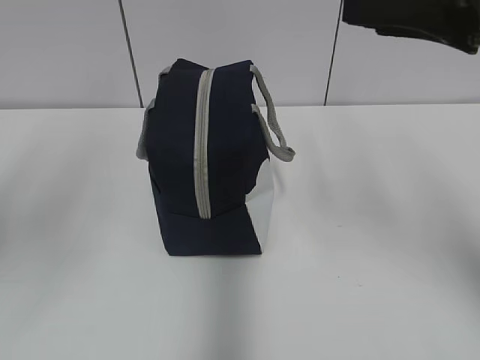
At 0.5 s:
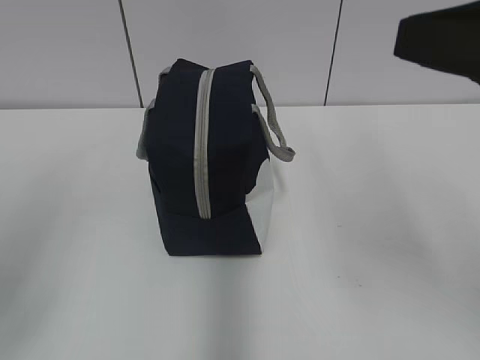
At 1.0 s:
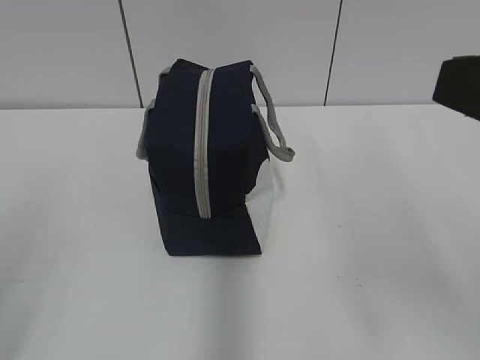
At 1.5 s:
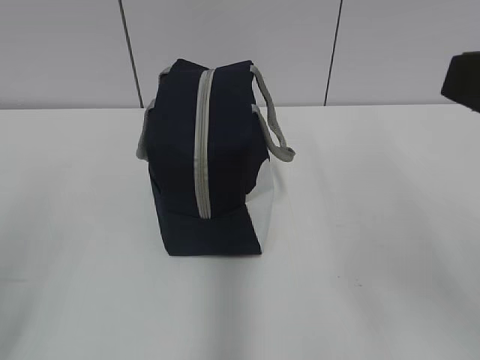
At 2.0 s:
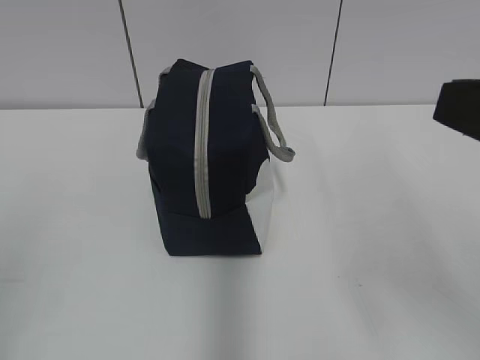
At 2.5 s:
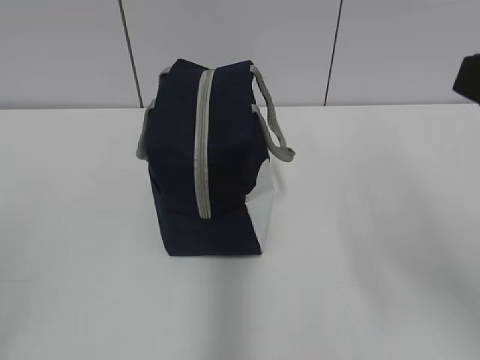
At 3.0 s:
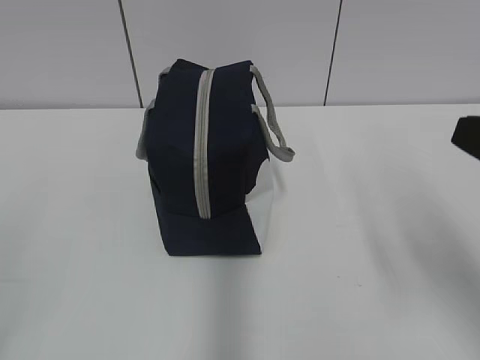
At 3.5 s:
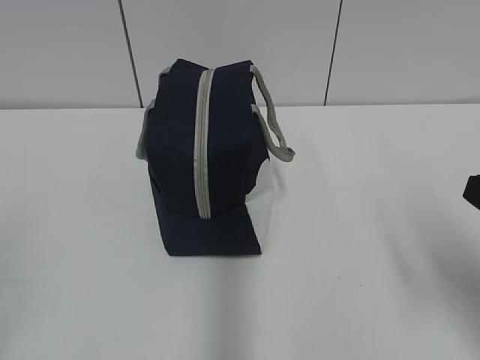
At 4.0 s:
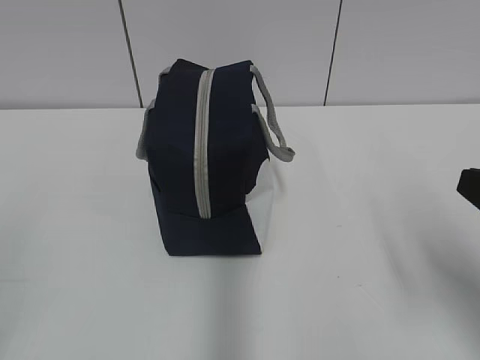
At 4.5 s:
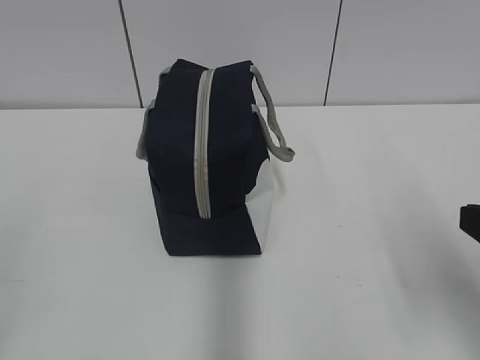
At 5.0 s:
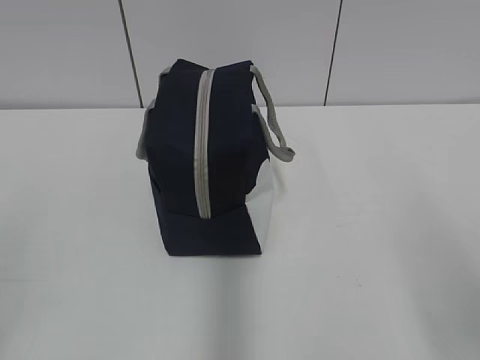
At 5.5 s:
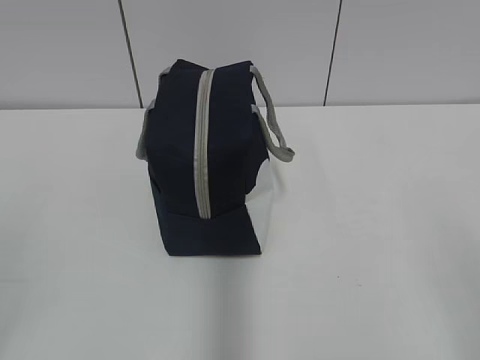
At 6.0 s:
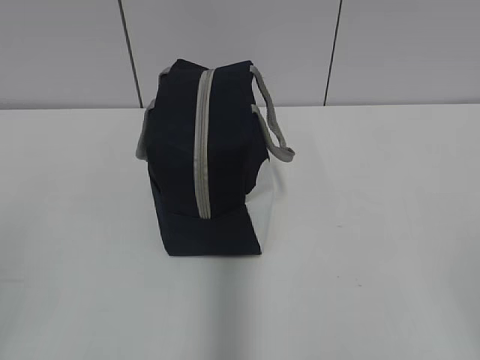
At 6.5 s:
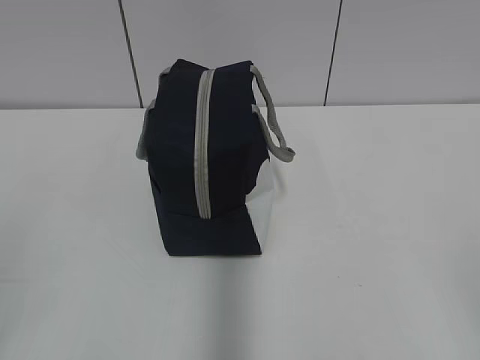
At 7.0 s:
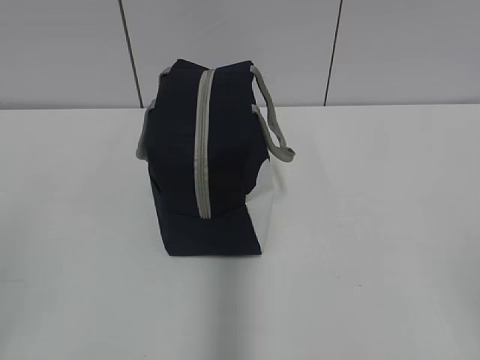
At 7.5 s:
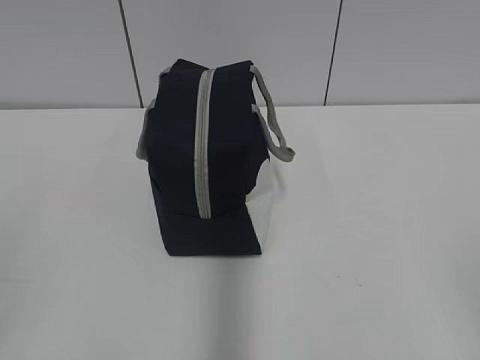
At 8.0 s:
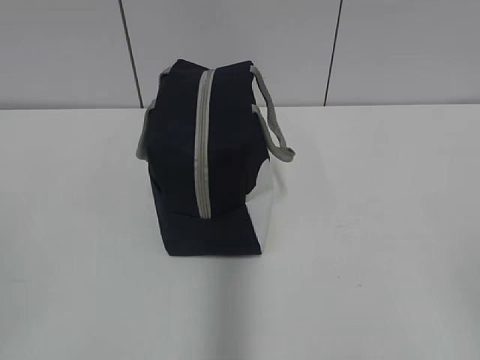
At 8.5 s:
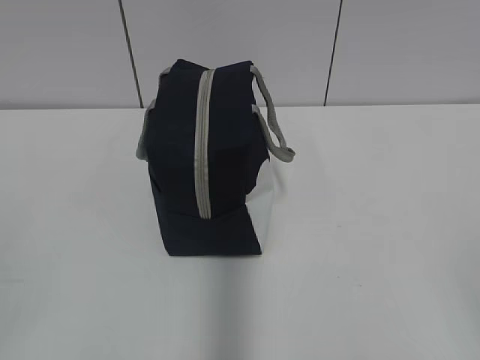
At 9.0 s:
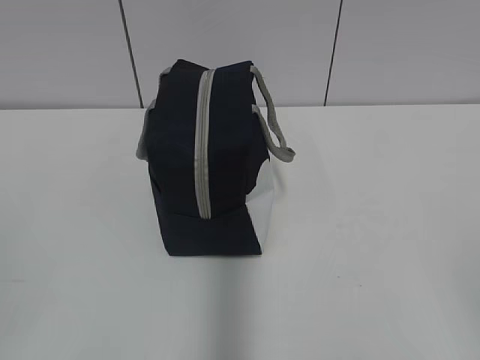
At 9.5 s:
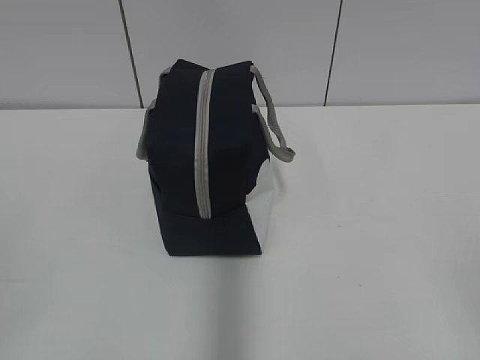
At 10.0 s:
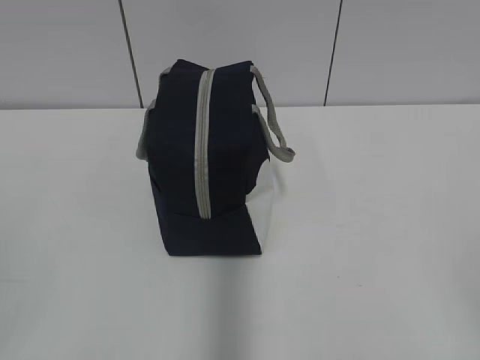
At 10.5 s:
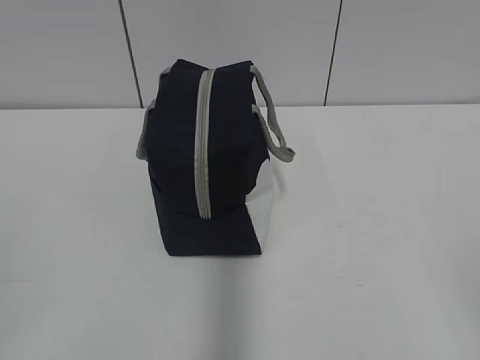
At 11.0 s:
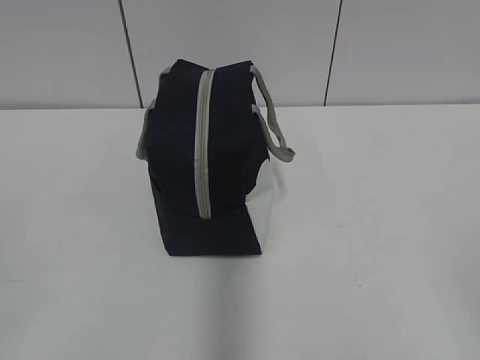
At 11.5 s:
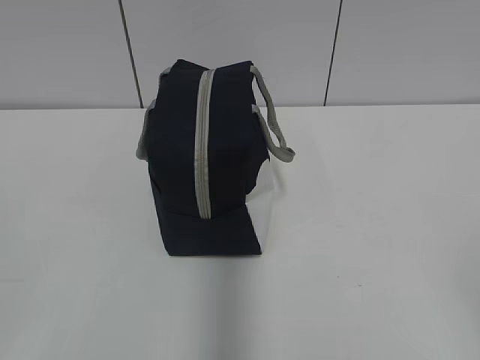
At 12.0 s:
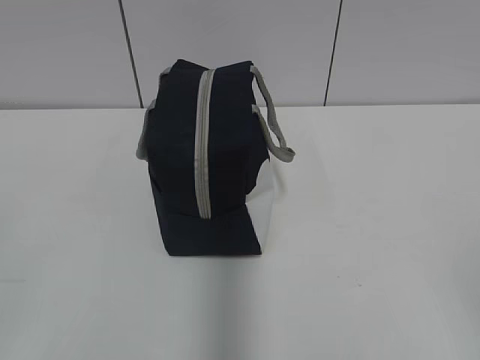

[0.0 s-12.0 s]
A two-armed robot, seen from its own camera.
0.0 to 2.0 s: The right gripper travels backward by roughly 10 cm.
2.0 to 4.0 s: The right gripper moves downward, about 10 cm.
4.0 to 6.0 s: The right gripper travels backward by approximately 15 cm.
8.0 to 10.0 s: Both grippers stay about where they are.

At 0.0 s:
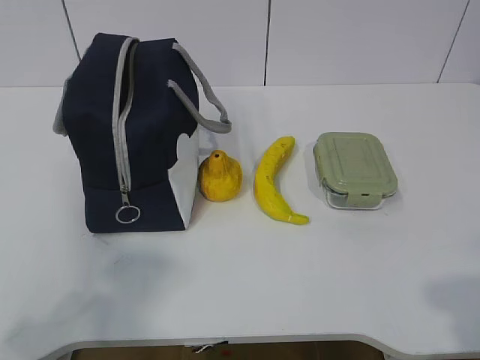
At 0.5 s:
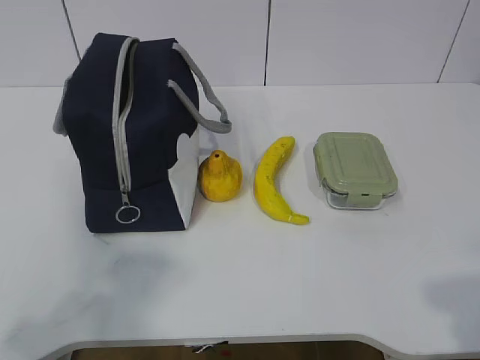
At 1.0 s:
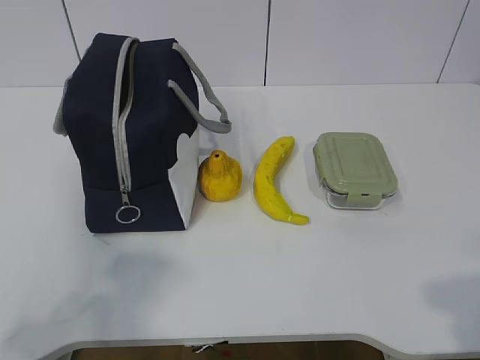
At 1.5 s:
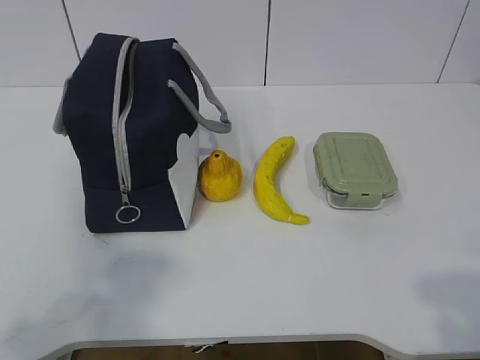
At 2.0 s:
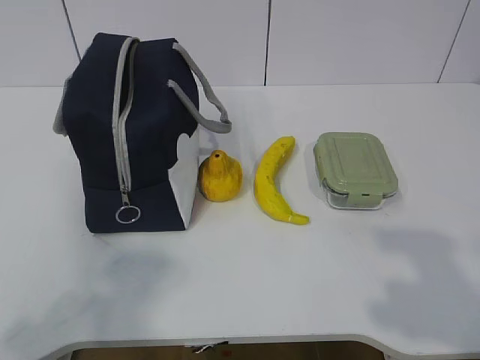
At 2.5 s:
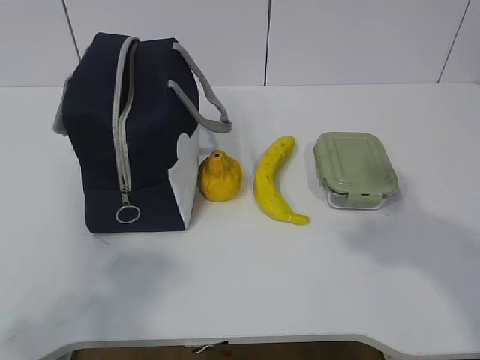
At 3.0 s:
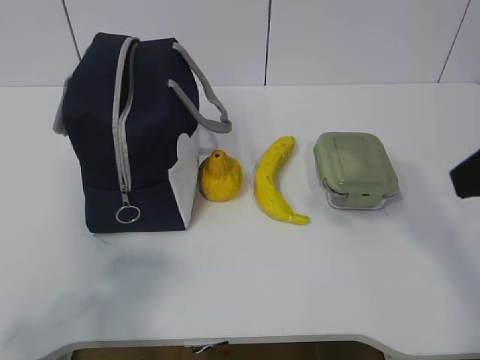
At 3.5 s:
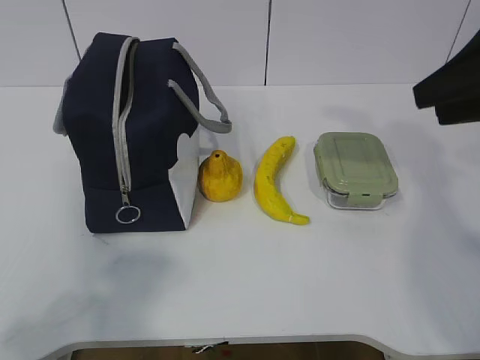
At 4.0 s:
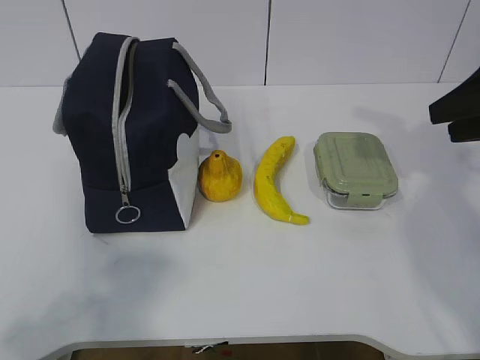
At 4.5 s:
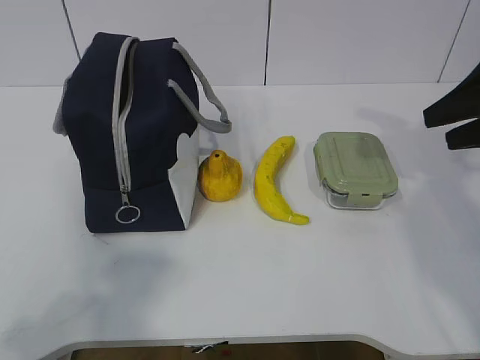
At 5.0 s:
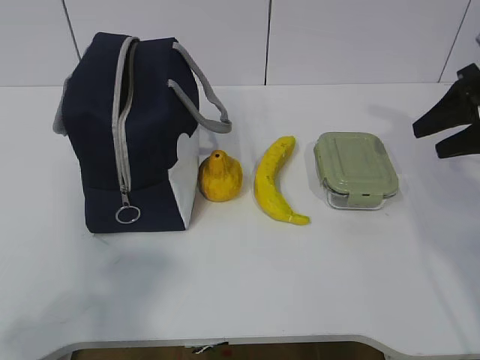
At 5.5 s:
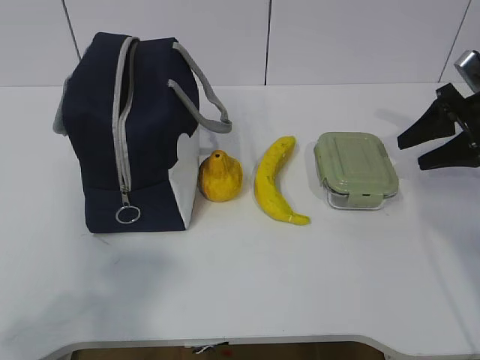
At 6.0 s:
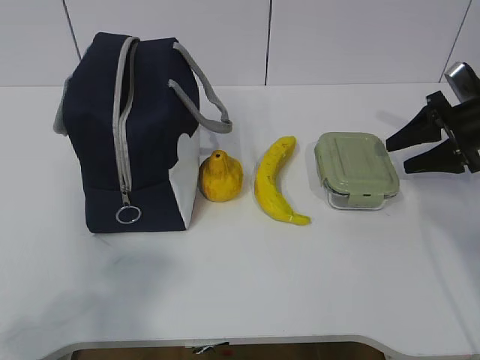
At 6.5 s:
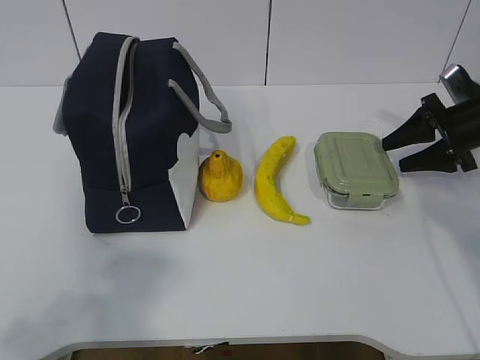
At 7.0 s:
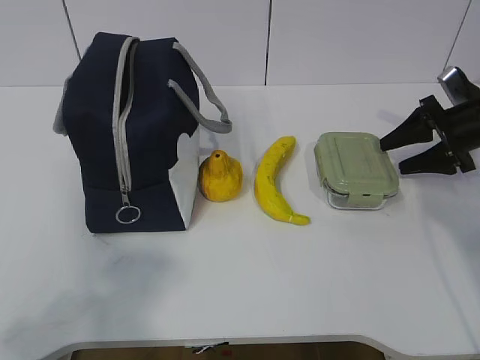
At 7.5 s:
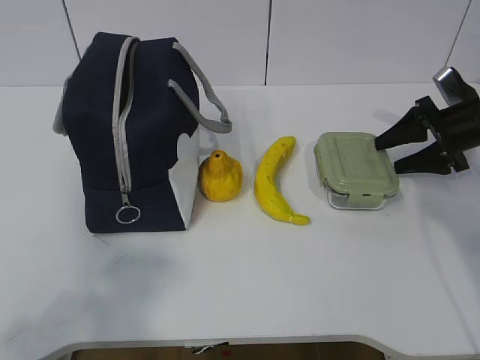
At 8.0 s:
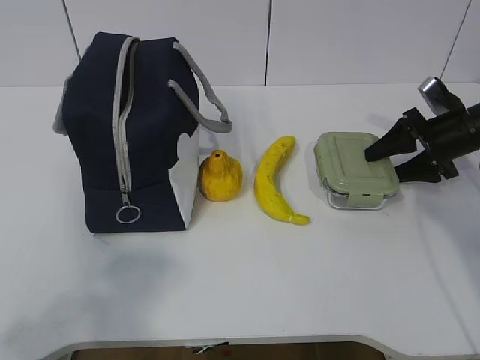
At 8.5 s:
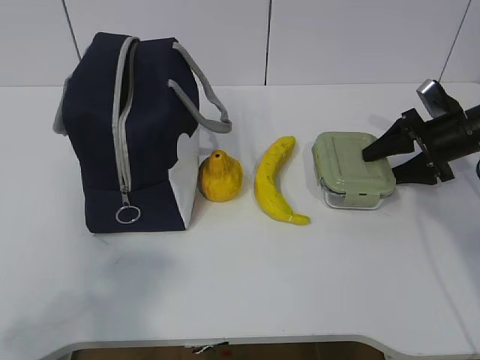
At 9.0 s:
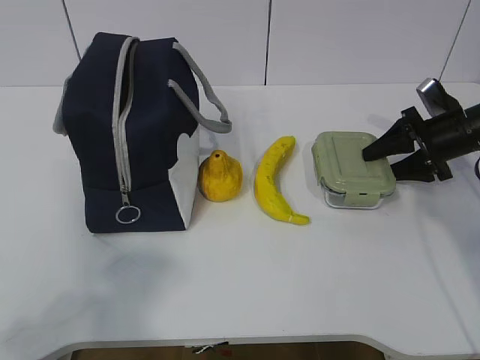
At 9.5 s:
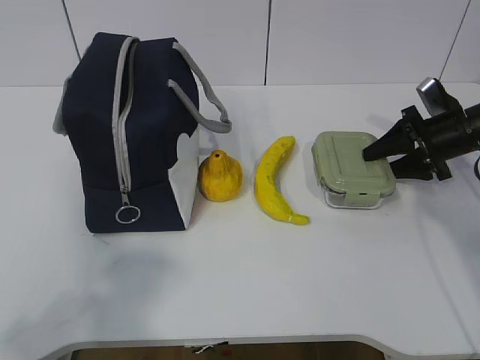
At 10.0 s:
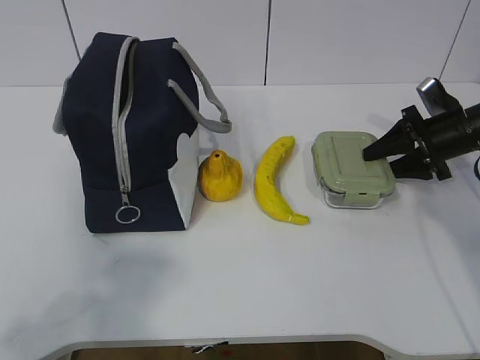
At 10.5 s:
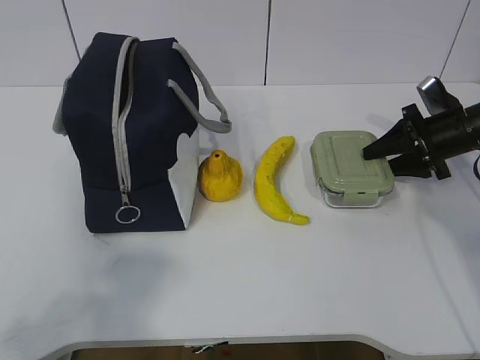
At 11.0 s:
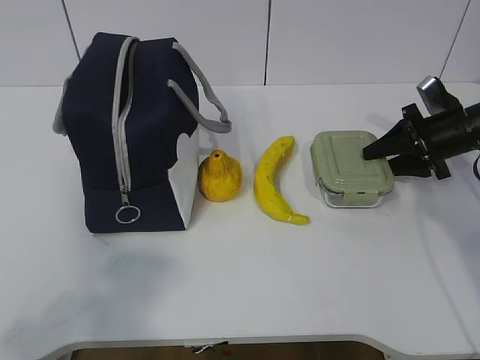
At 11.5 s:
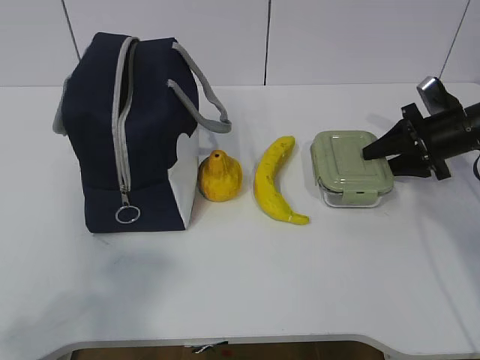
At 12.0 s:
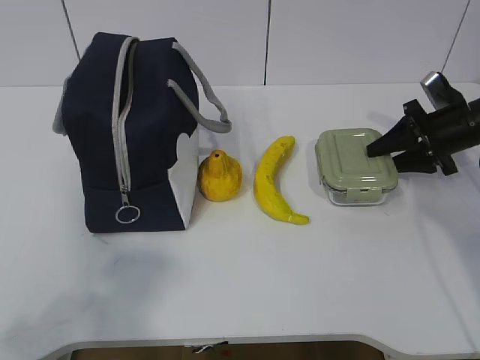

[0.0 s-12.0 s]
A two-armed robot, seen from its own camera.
Step, 0.0 to 10.0 s: Grab the lunch box with your right hand.
2.0 to 4.0 s: The right gripper goes approximately 30 cm forward.
4.0 to 6.0 s: The right gripper shifts roughly 15 cm downward and forward.
6.0 to 8.0 s: The grippers make only small movements.
8.0 to 12.0 s: Both grippers stay put.

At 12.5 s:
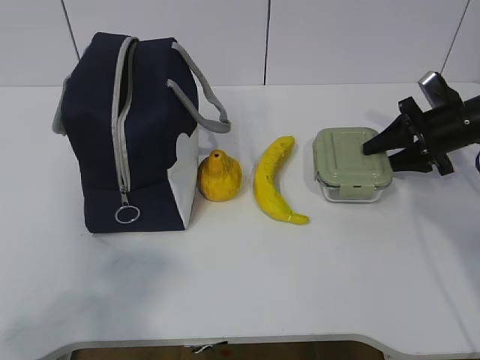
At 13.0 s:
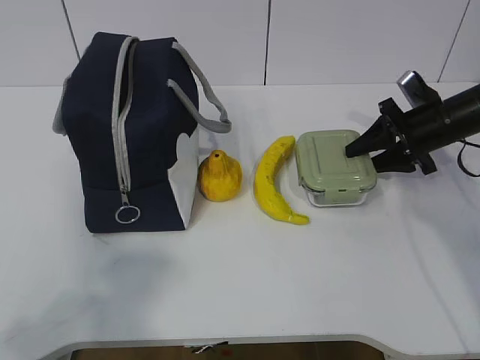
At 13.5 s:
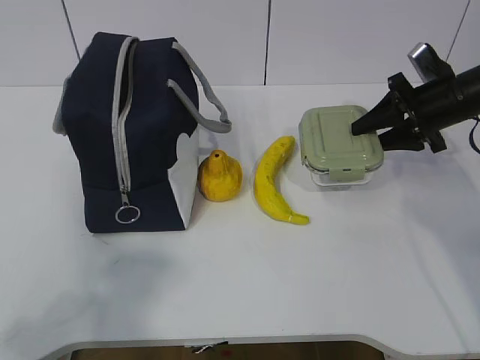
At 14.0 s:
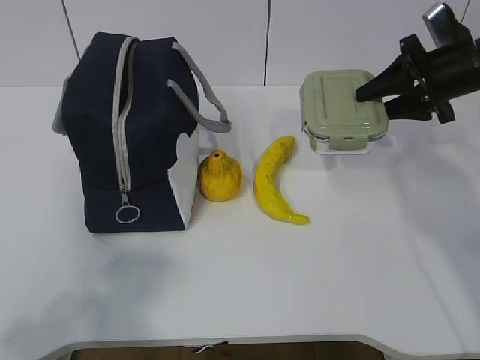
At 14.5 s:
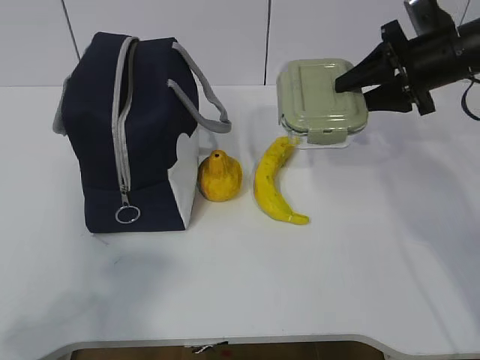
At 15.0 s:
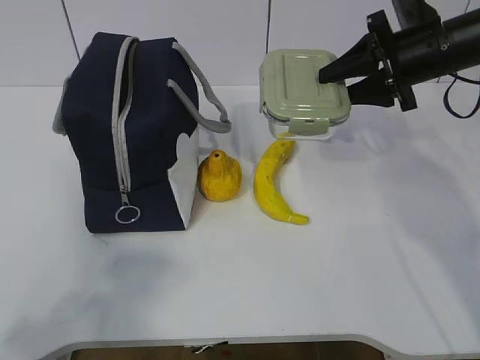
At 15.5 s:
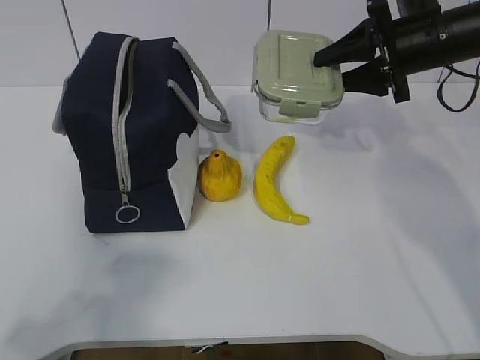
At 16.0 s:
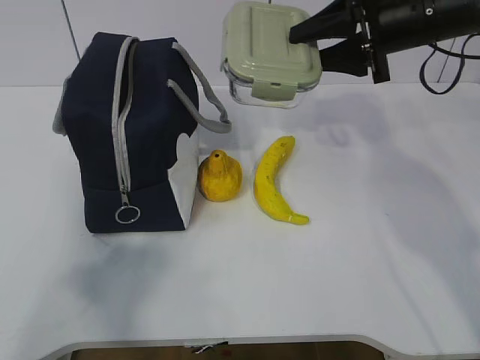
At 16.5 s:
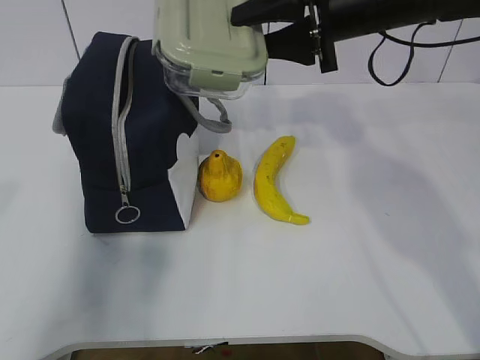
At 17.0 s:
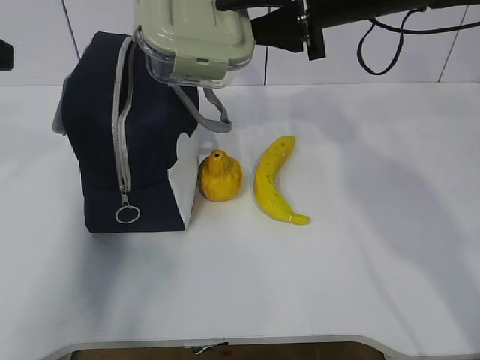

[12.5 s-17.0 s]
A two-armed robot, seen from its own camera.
12.5 to 14.5 s: The right gripper heads upward and to the left, covering about 10 cm.
14.5 to 17.0 s: The left gripper travels forward by approximately 25 cm. The right gripper goes about 15 cm to the left and upward.
